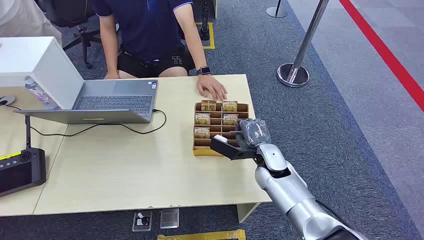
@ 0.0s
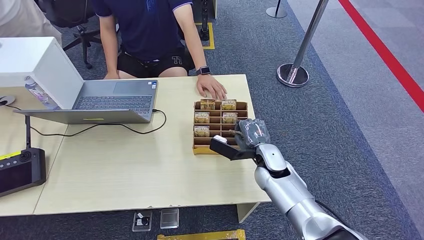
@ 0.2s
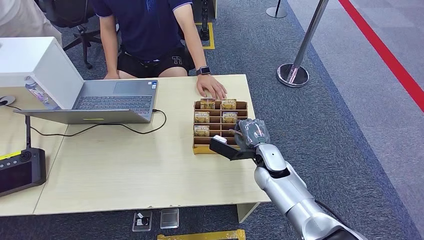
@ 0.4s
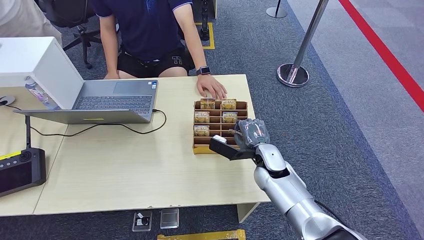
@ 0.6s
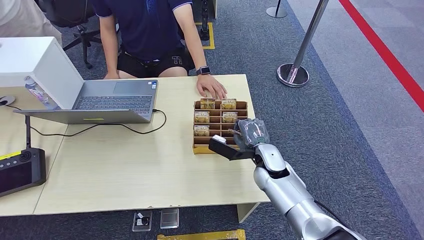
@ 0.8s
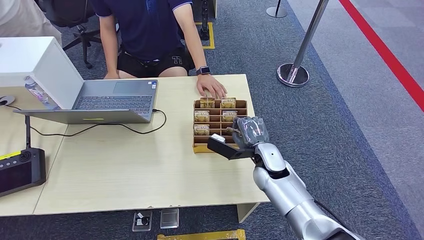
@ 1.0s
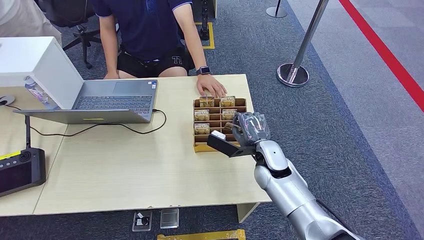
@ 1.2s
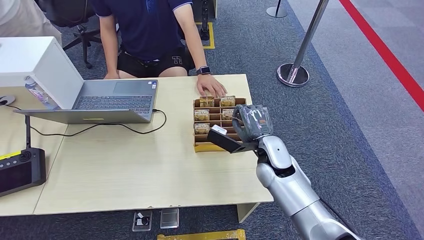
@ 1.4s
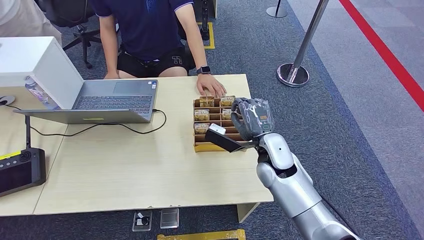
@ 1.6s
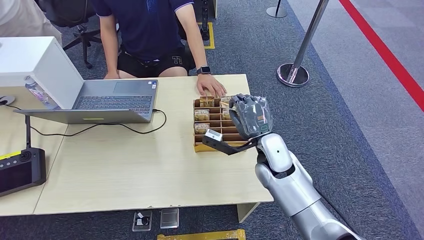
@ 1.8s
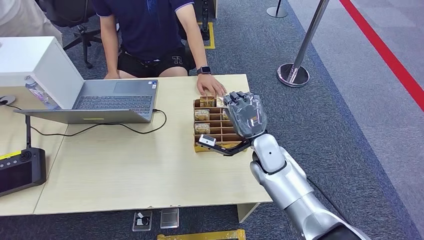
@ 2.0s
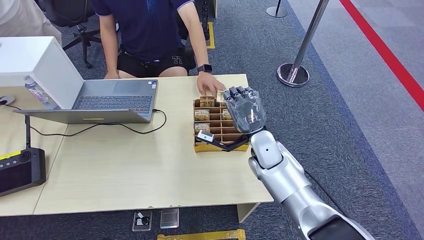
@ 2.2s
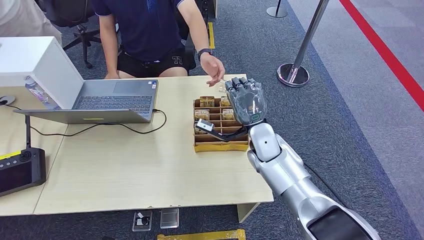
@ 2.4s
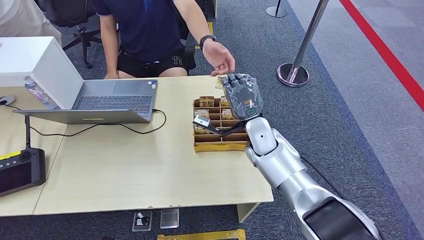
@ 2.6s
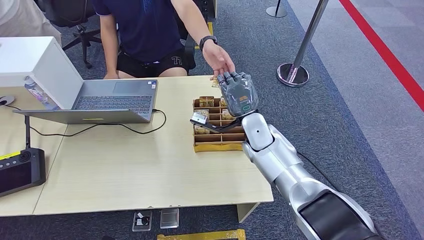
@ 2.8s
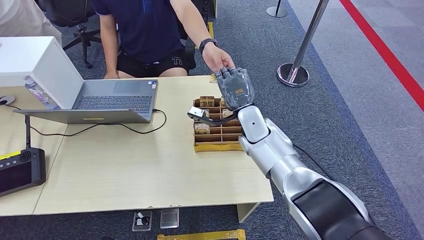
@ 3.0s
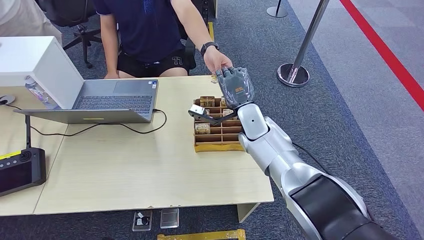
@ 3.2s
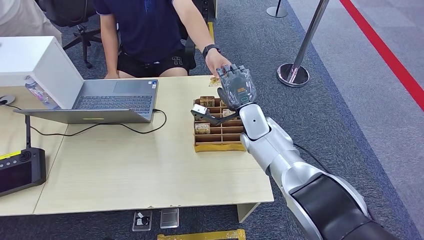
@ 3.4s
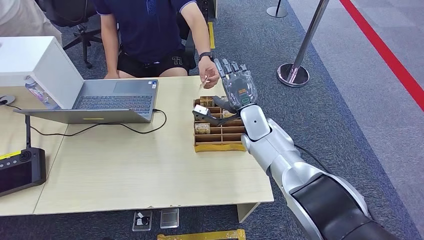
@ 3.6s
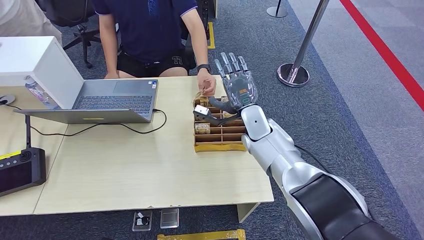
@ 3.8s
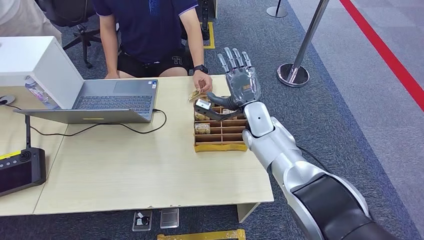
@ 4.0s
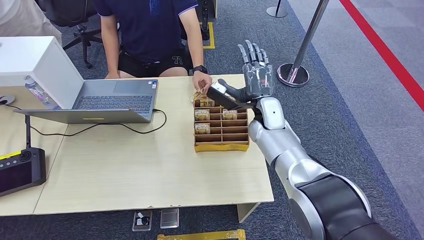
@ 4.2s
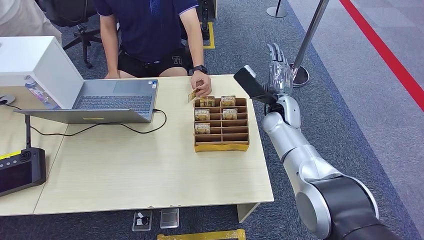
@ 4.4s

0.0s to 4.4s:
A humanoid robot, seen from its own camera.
Step, 0.0s to 2.0s: Pick up the room card from the card holder.
Step, 2.4s to 4.4s: Hand the room card to the target.
1.4s to 3.0s: The right hand is displaced forward by approximately 10 cm.
3.0s to 4.4s: The right hand is displaced to the right by about 10 cm.
